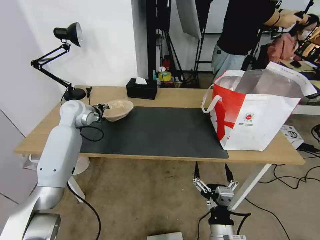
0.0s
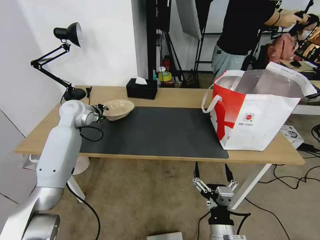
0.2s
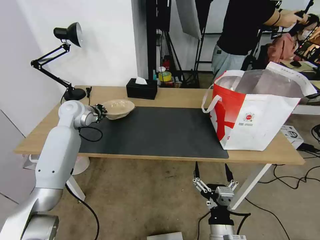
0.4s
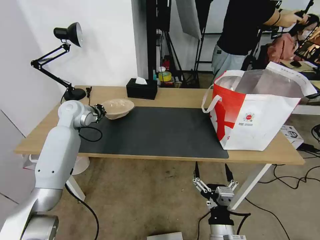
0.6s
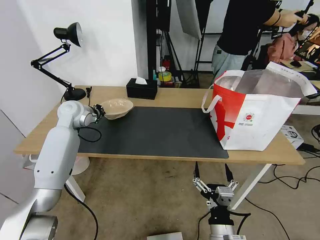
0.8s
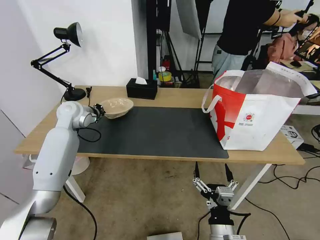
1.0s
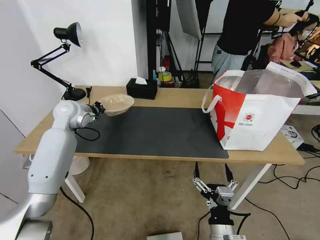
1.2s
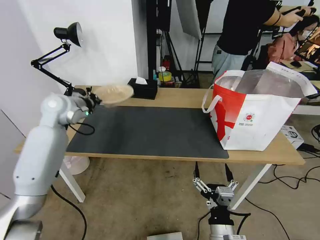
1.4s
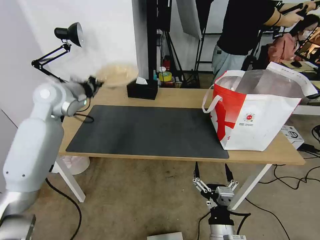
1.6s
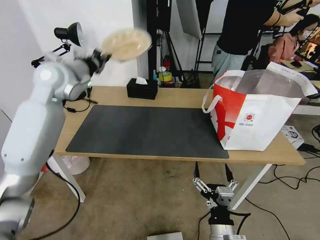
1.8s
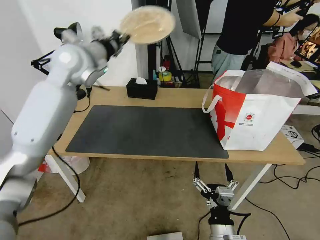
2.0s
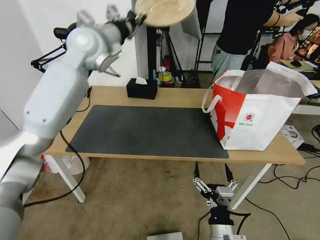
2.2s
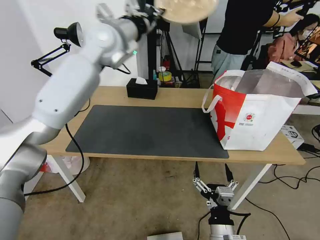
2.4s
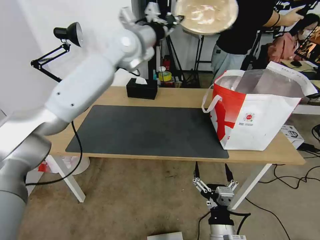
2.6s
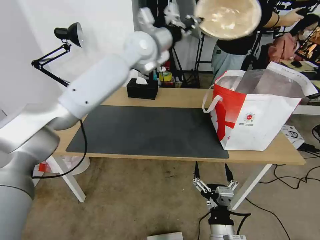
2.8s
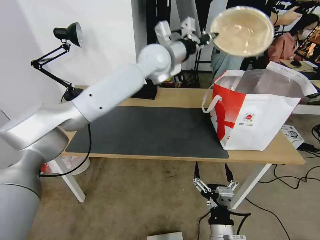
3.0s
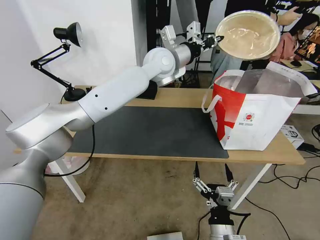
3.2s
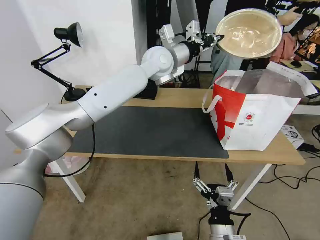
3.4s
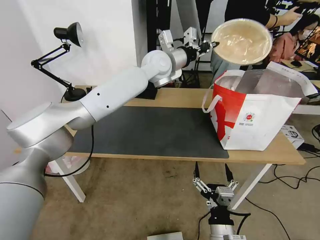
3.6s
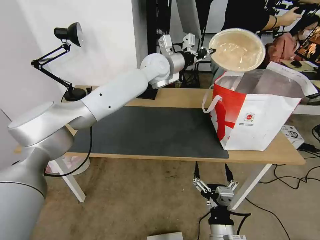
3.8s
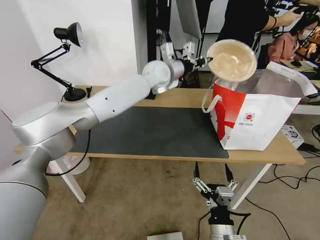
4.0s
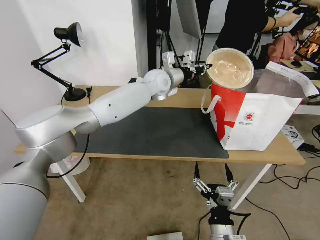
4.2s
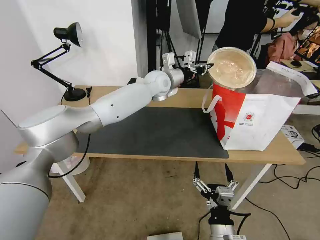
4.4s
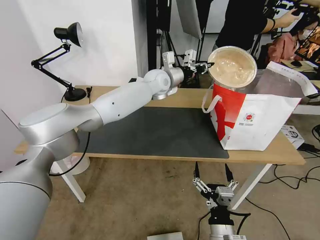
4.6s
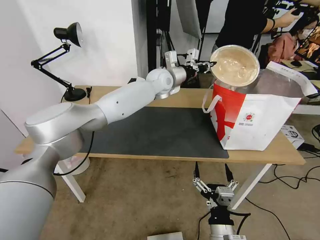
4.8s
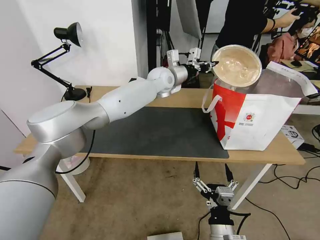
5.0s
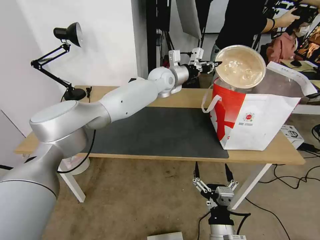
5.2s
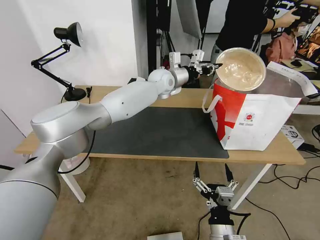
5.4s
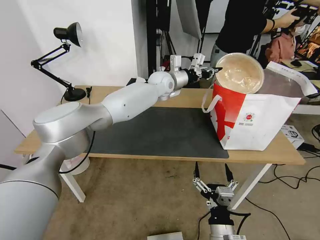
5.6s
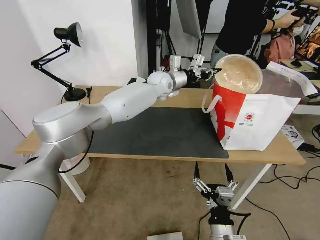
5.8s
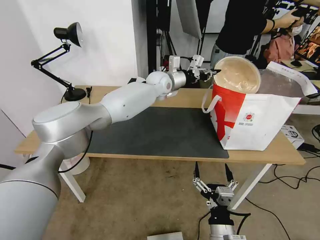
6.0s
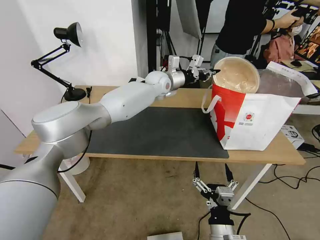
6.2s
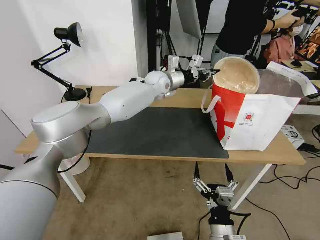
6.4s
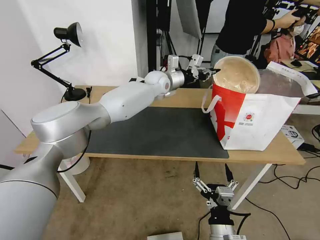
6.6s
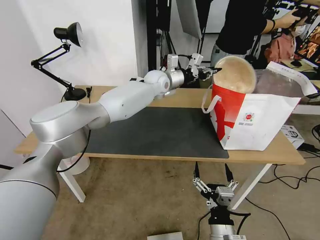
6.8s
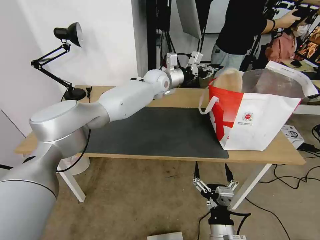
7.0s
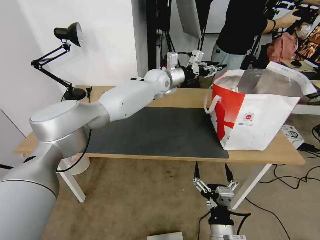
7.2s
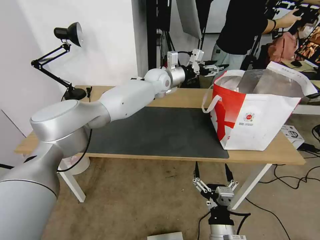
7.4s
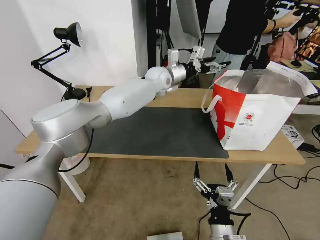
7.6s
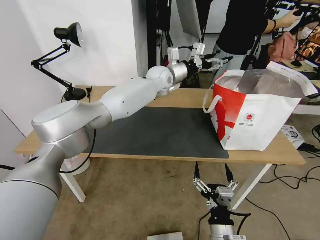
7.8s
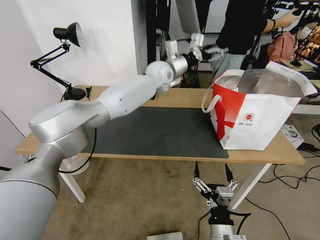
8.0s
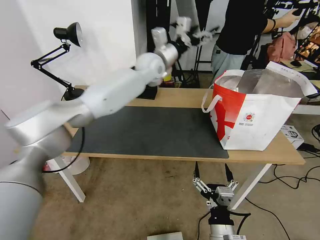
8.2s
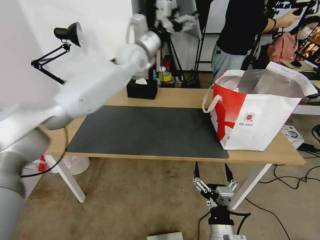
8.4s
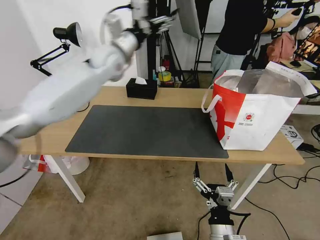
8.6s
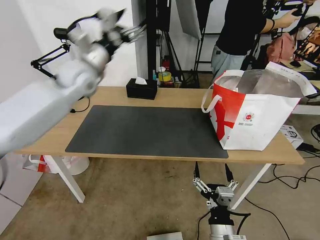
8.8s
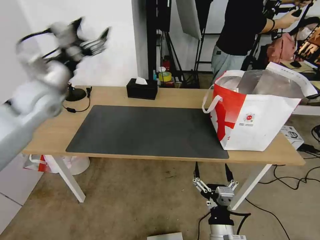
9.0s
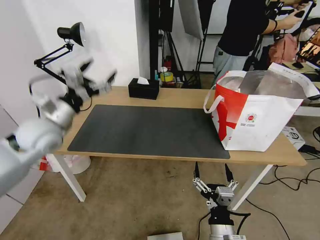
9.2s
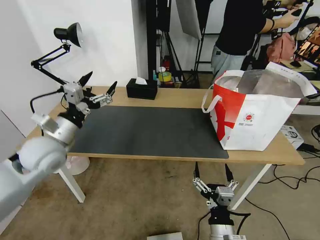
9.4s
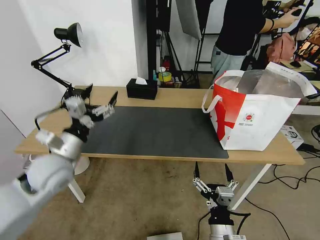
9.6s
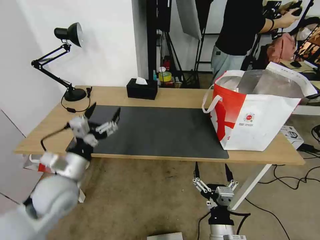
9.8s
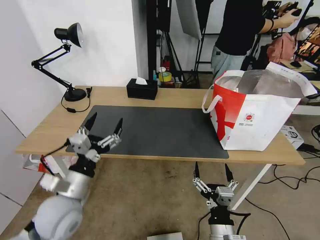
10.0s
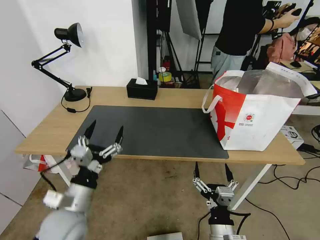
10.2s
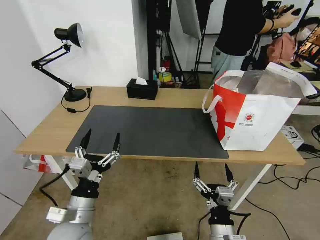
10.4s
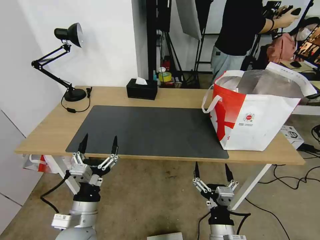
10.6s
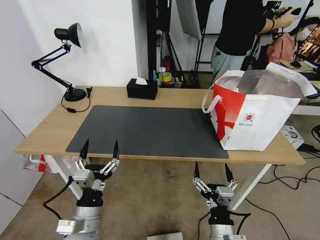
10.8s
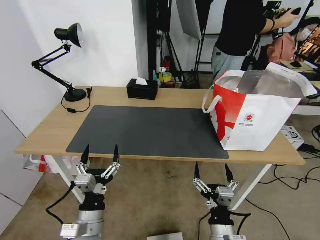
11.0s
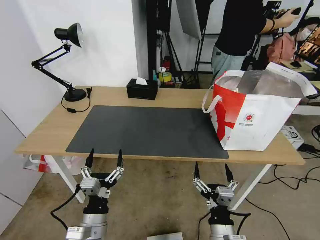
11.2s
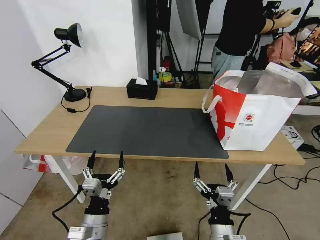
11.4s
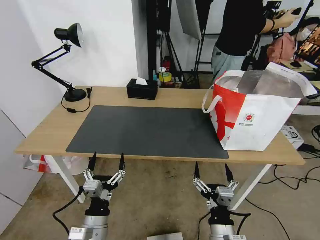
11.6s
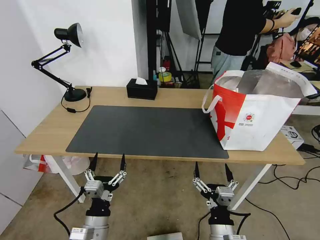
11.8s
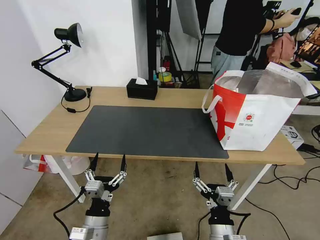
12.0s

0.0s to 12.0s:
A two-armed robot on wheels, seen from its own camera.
Task of the whole recording: Pick up the trash from the table and place it into the takeout bag.
0.0s to 1.6s: The left gripper goes roughly 10 cm upward and backward, and closes its fingers.
1.6s to 3.0s: The left gripper moves to the right, about 30 cm.
3.0s to 4.4s: The left gripper travels downward by some 10 cm.
4.4s to 6.0s: The grippers make only small movements.
6.0s to 7.6s: The left gripper opens up.
7.6s to 9.0s: The left gripper heads to the left and backward, covering some 40 cm.
9.0s to 10.4s: The left gripper moves backward, downward and to the right, approximately 35 cm.
10.4s to 12.0s: The left gripper goes some 5 cm downward.

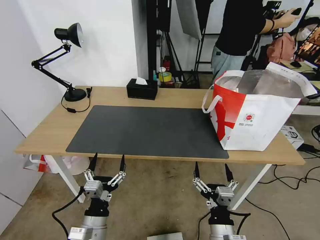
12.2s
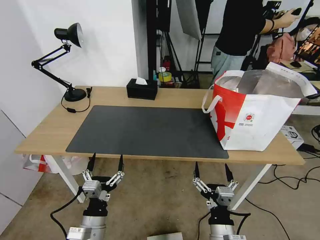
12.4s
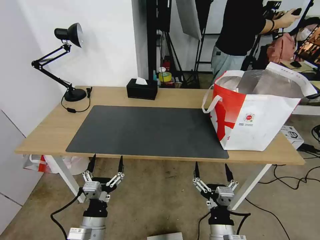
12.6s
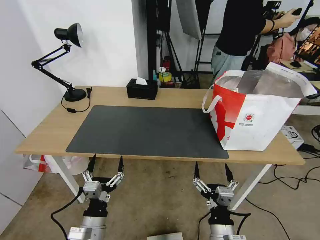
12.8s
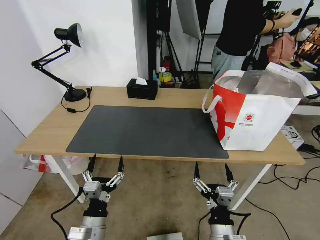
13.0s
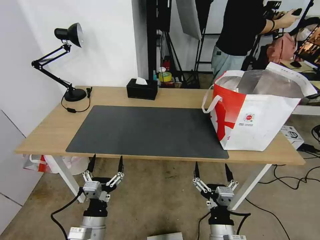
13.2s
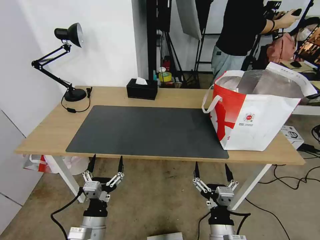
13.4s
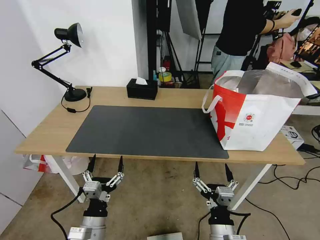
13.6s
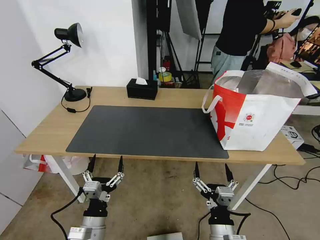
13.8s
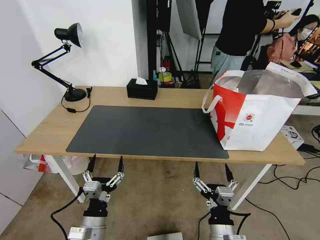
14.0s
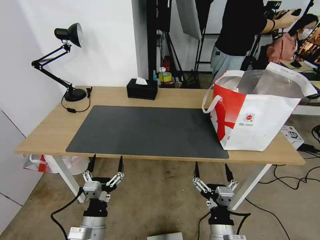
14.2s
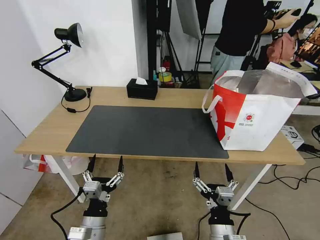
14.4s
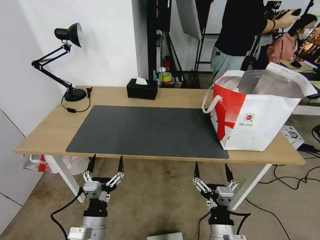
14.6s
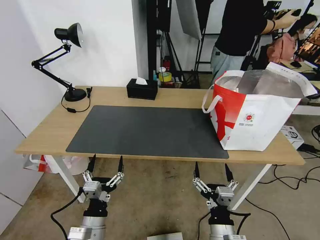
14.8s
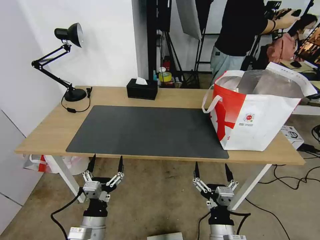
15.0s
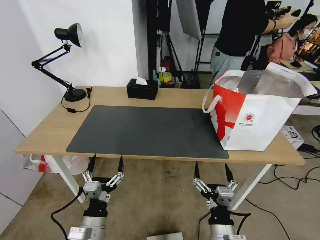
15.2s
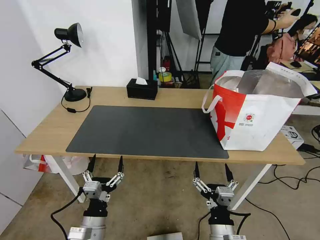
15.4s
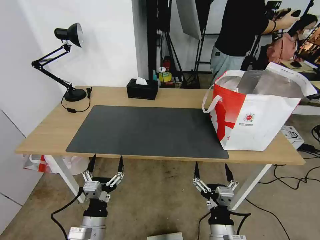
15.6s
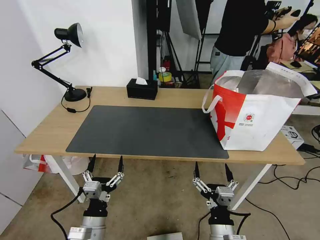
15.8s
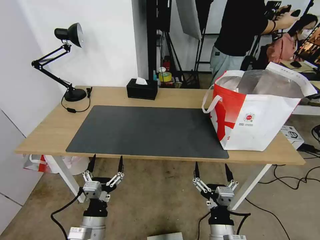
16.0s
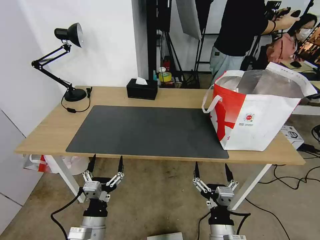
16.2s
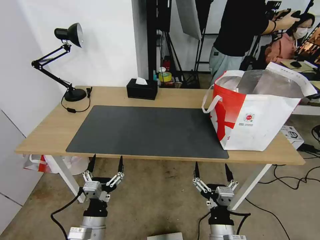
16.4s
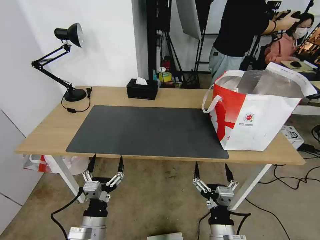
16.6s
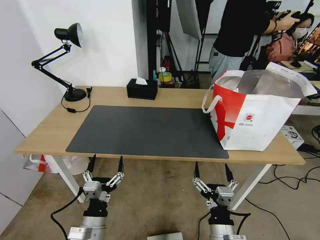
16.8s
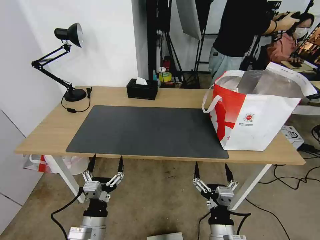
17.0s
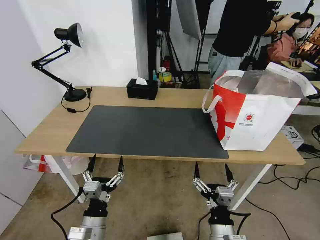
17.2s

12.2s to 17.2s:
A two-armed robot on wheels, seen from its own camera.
Task of the whole recording: Pick up the trash from the table and place it into the takeout bag.
12.2s to 17.2s: The two grippers keep their place.

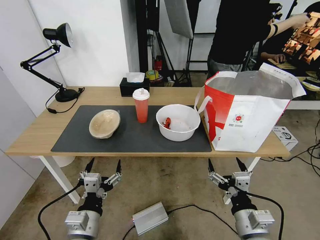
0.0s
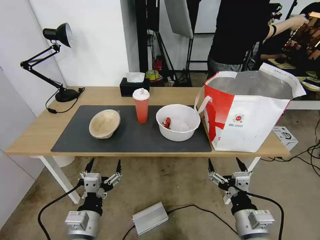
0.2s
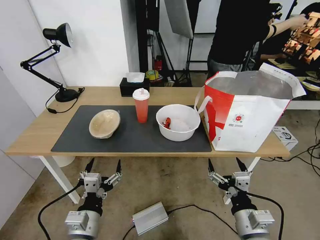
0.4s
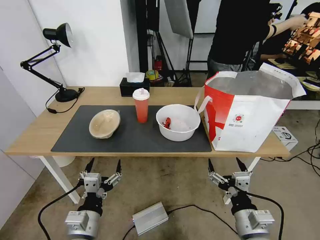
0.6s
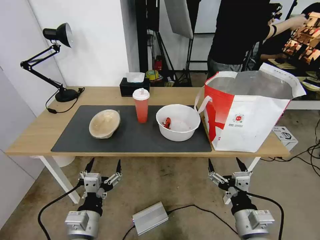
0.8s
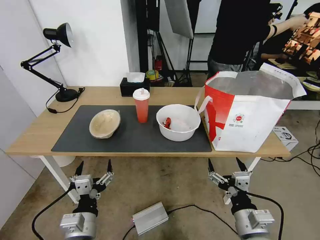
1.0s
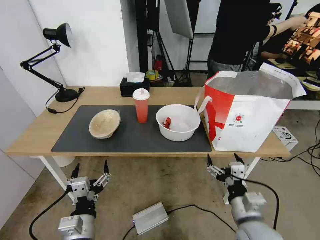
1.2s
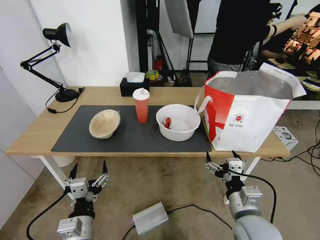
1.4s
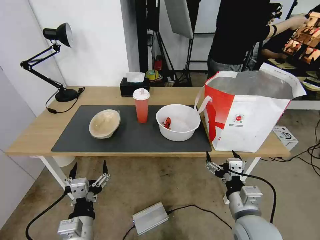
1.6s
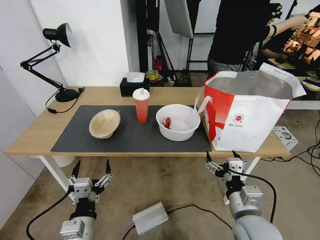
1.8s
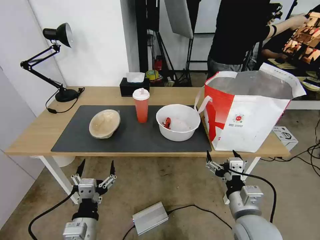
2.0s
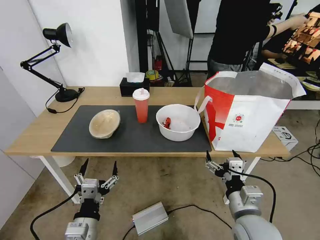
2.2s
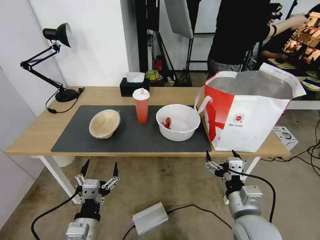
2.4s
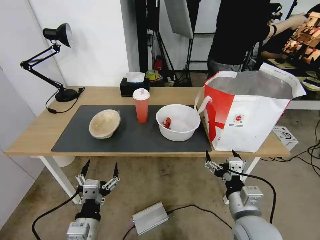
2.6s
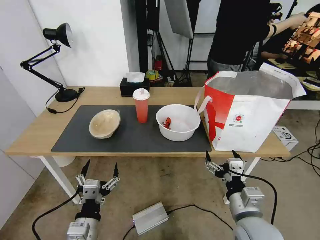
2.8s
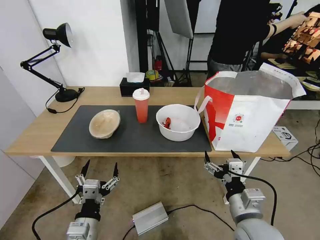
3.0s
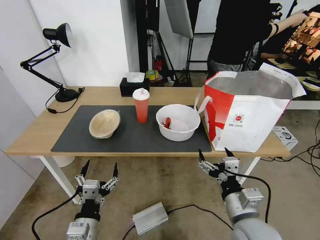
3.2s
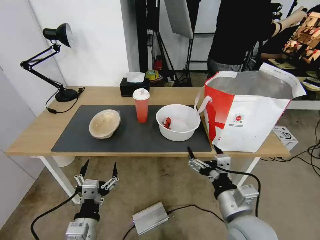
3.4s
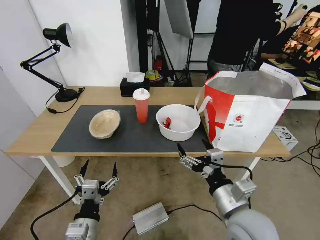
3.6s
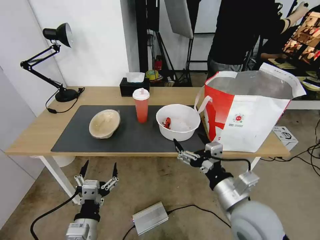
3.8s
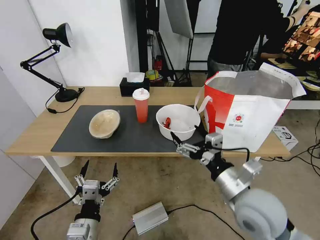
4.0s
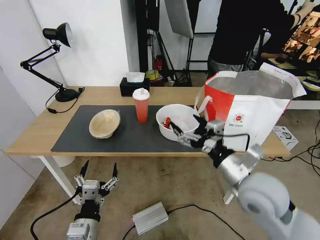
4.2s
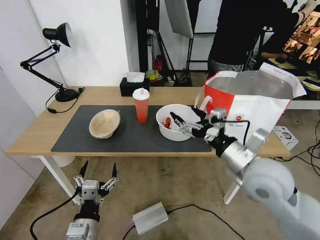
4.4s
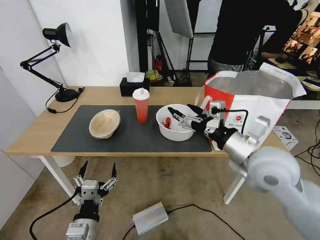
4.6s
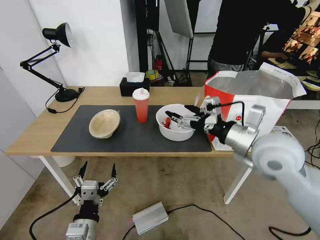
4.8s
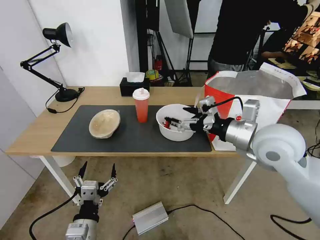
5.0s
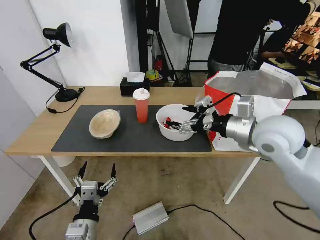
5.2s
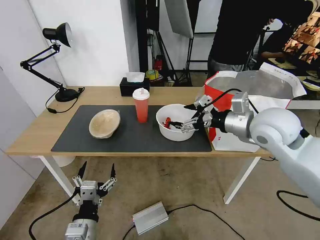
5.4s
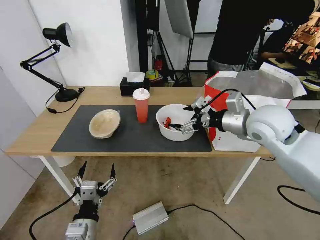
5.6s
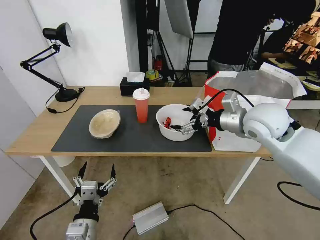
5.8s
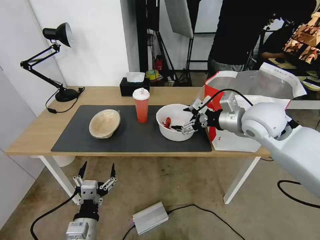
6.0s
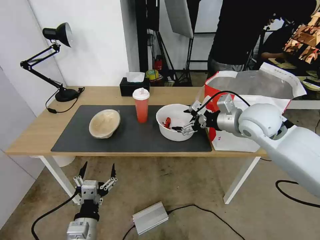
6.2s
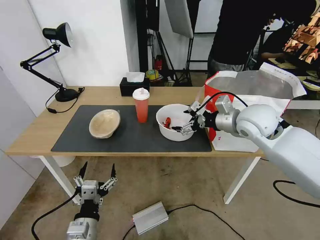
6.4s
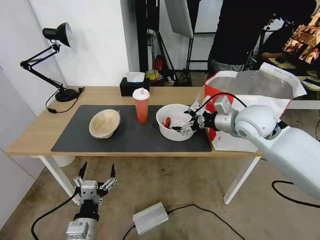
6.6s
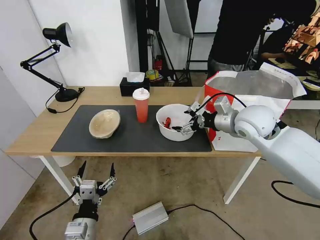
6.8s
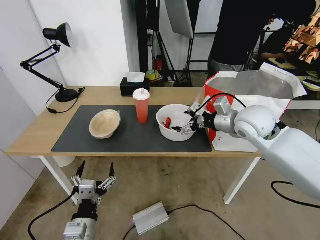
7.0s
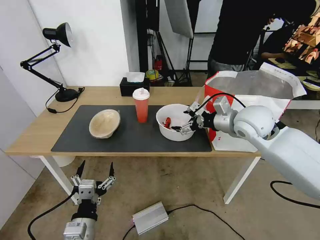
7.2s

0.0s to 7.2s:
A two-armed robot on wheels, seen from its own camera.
Task of the whole recording: Pick up the trash from the table and place it into the takeout bag.
1.4s to 2.8s: The grippers move only a little.
2.8s to 4.4s: The right gripper shifts approximately 15 cm upward and forward.
4.4s to 5.8s: The right gripper moves forward and upward, roughly 15 cm.
5.8s to 7.2s: There are only small adjustments of the grippers.
